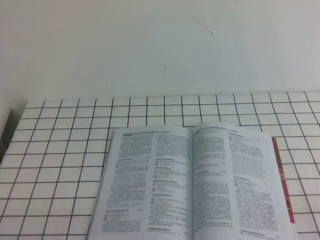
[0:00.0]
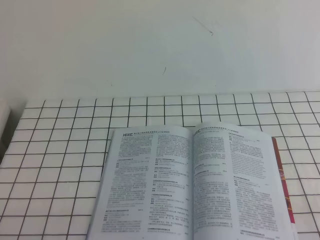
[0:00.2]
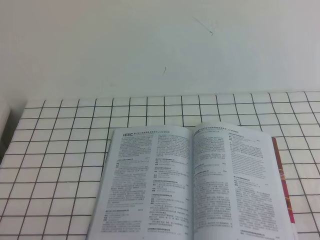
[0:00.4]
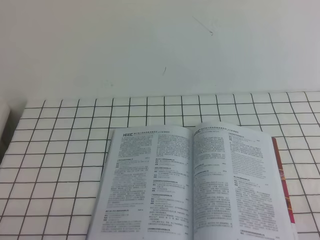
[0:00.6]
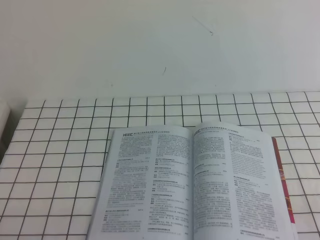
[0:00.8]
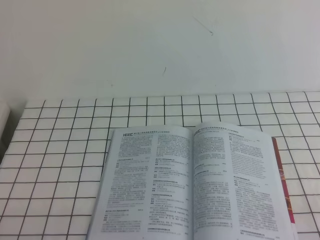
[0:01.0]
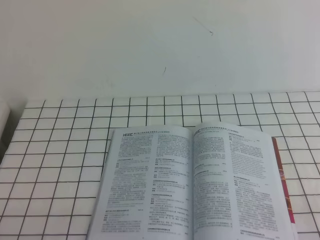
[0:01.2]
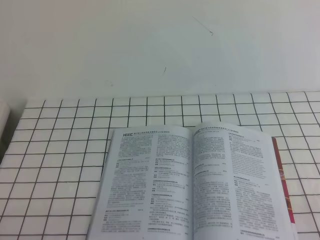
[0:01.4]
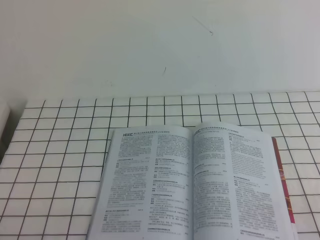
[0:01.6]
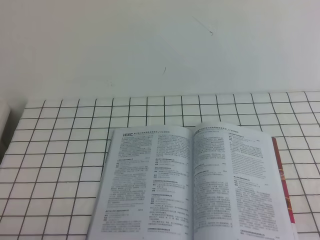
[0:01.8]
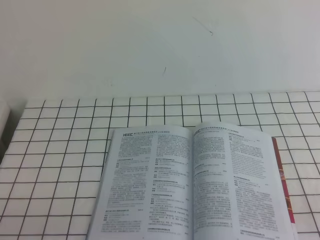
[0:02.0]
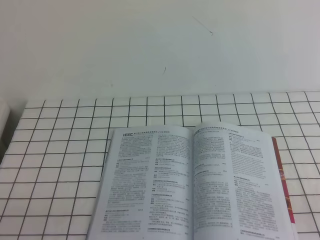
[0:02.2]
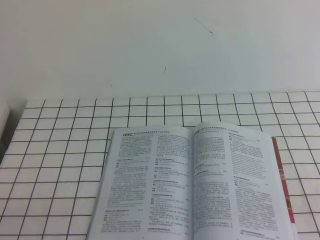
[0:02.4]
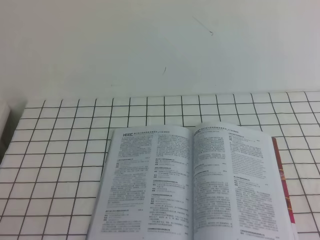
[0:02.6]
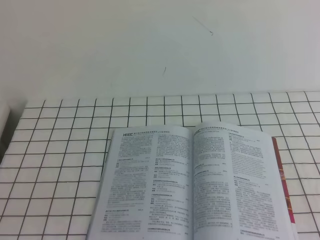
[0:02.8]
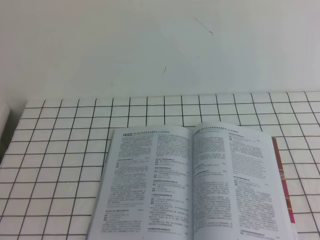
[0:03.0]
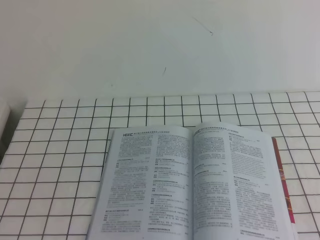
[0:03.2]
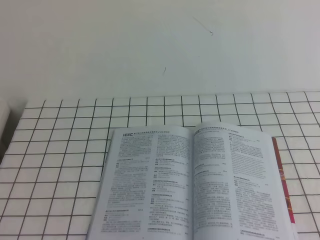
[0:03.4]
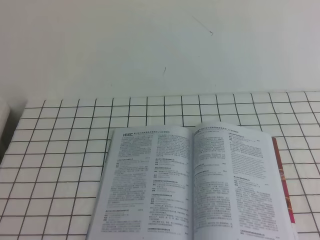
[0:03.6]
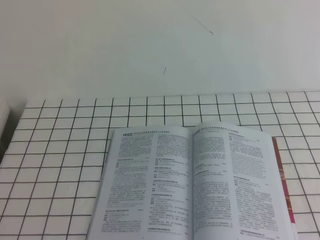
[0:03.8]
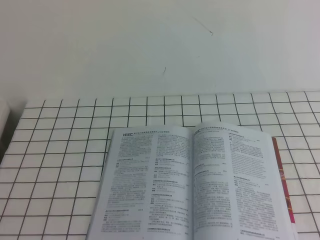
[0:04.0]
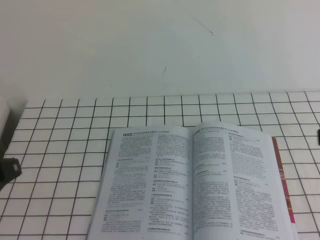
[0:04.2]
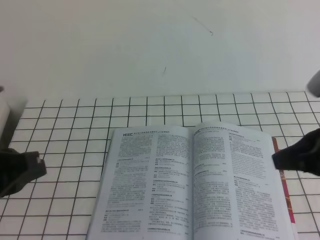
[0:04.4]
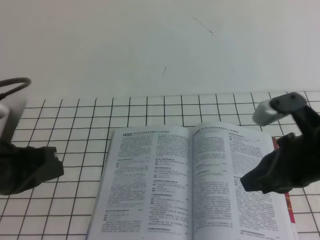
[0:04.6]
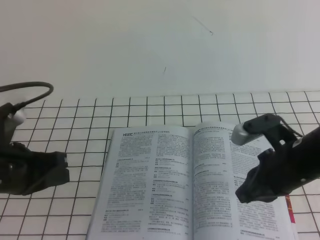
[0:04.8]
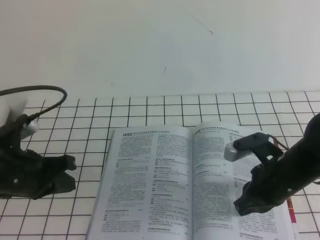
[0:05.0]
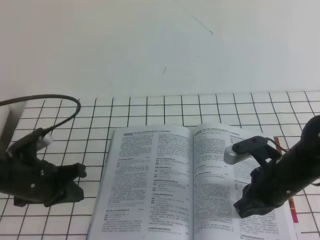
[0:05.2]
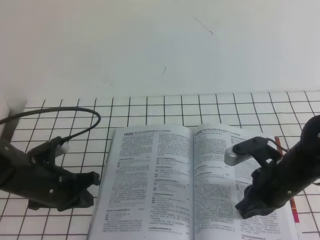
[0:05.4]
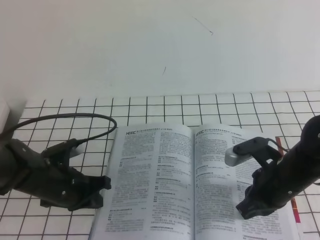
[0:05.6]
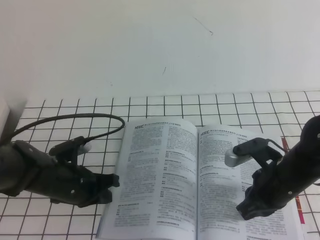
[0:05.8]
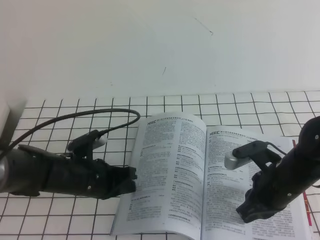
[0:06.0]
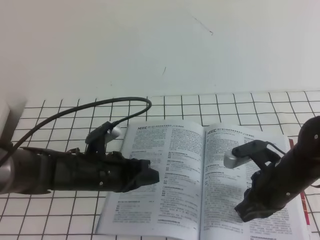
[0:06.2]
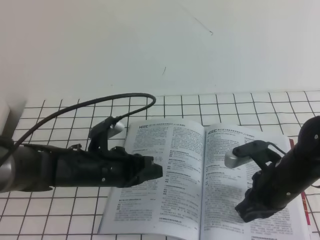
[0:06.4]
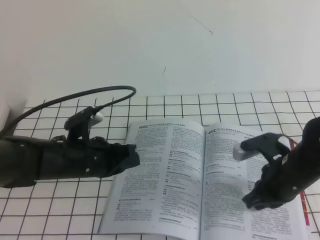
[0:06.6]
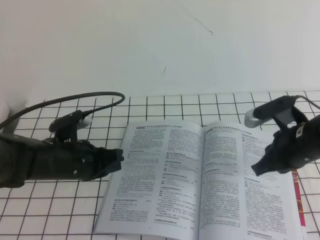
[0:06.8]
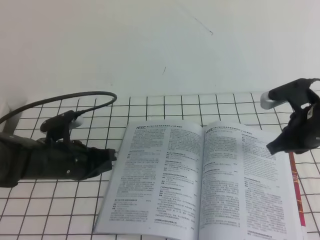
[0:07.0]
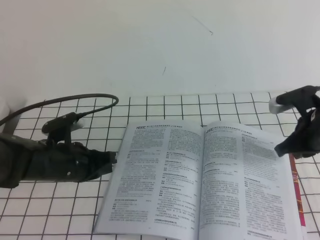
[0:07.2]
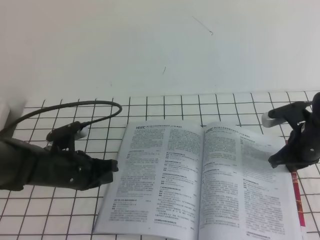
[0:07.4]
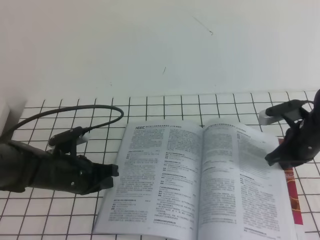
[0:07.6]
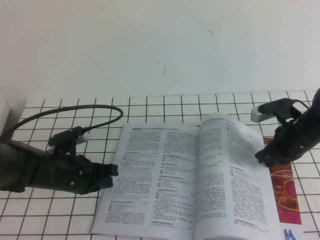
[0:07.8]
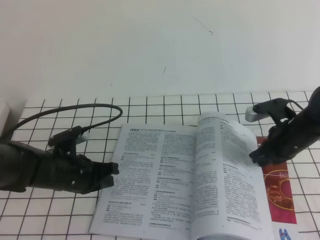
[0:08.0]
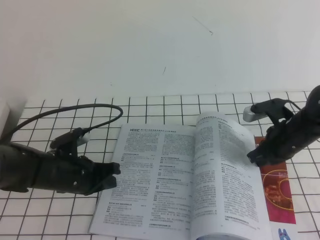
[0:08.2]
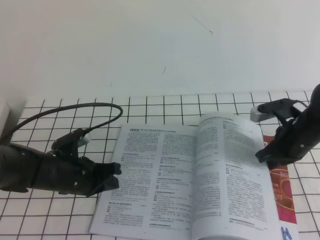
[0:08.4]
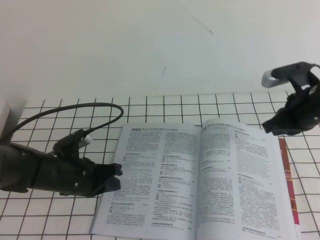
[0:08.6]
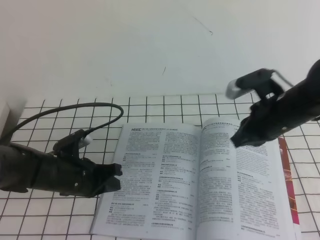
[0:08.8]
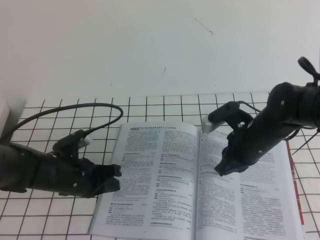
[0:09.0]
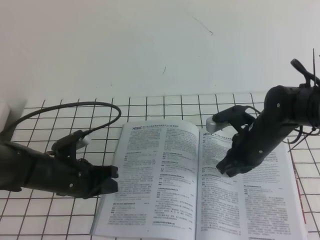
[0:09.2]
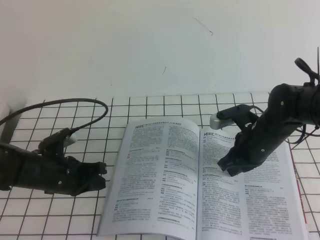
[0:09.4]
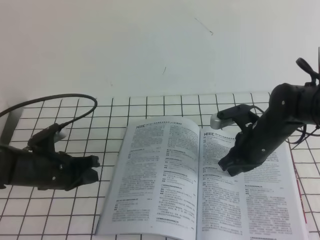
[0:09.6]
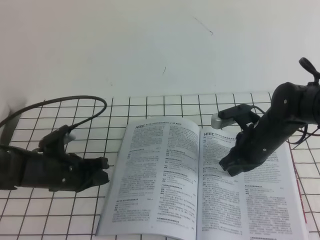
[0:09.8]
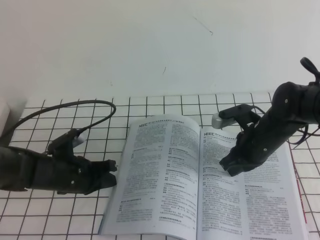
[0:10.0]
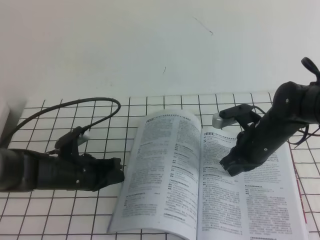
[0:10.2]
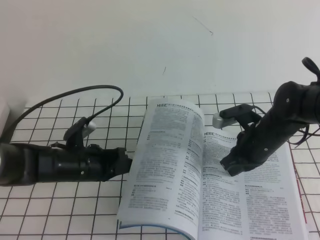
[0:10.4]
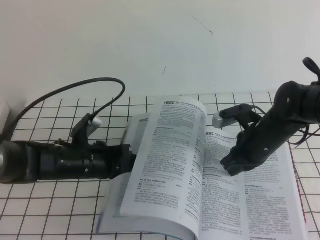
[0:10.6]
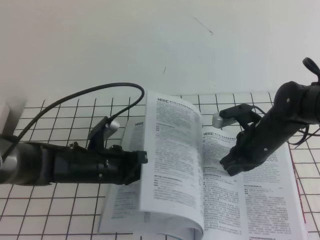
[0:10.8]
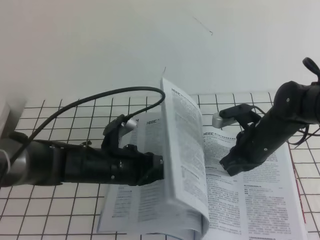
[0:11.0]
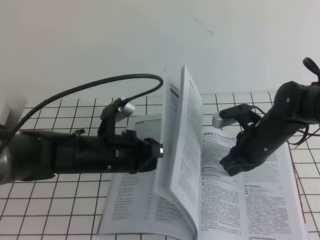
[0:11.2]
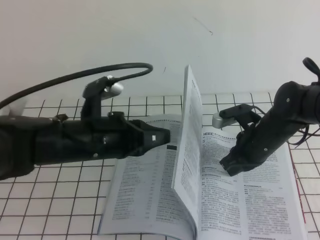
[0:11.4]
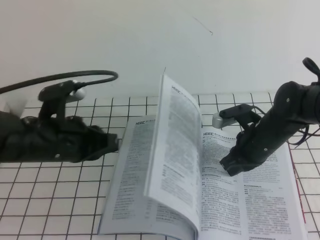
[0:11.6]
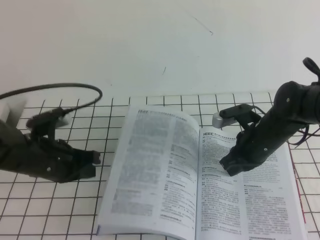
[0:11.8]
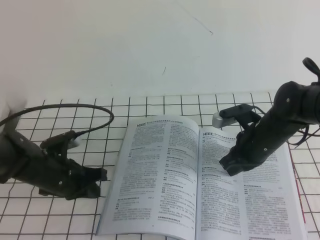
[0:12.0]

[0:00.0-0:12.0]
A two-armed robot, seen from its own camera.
Task of the whole recording: on the white tablecloth, hold the book with one hand and close it with the other.
0:03.0 to 0:04.4: The two grippers go approximately 20 cm forward.
0:04.4 to 0:06.0: The left gripper moves downward, forward and to the right, approximately 25 cm. The right gripper shifts approximately 15 cm downward.
0:06.0 to 0:07.6: The right gripper shifts some 10 cm forward and to the right.
0:07.6 to 0:09.0: The right gripper goes roughly 10 cm to the left.
0:09.0 to 0:10.4: The grippers move only a little.
0:10.4 to 0:12.0: The left gripper reaches about 10 cm upward, then returns.

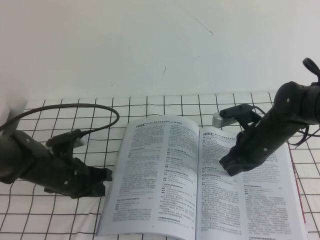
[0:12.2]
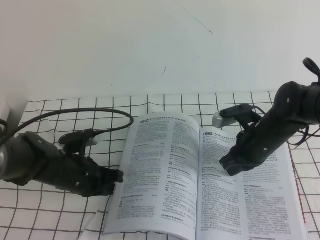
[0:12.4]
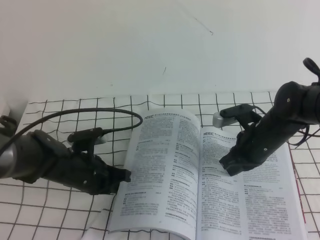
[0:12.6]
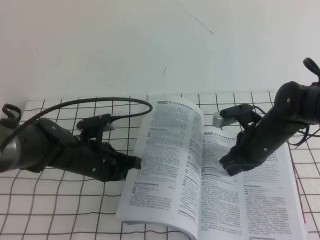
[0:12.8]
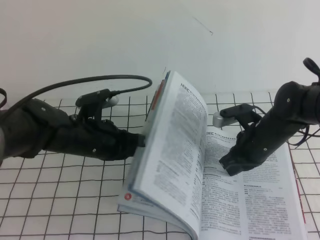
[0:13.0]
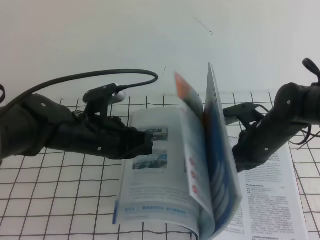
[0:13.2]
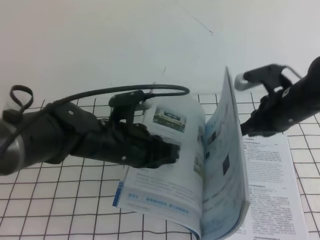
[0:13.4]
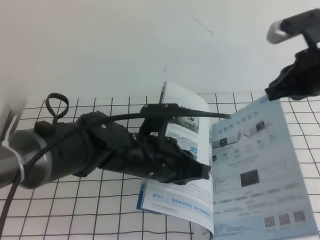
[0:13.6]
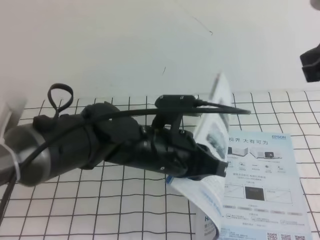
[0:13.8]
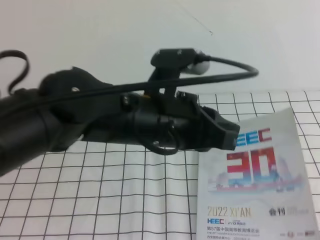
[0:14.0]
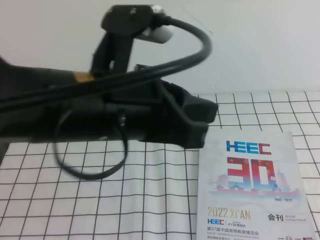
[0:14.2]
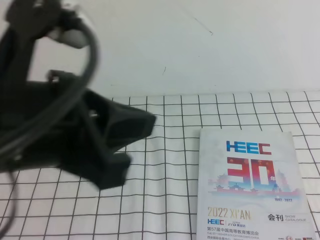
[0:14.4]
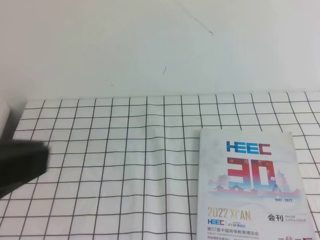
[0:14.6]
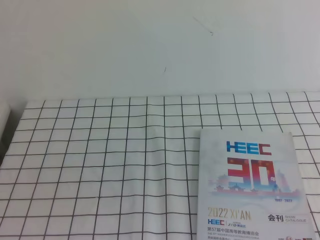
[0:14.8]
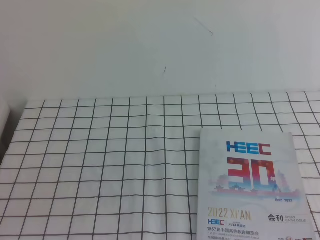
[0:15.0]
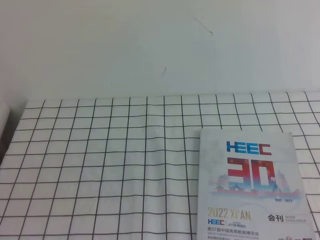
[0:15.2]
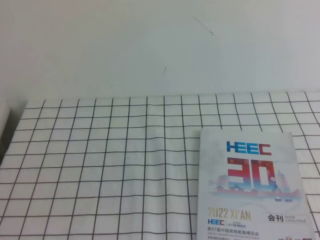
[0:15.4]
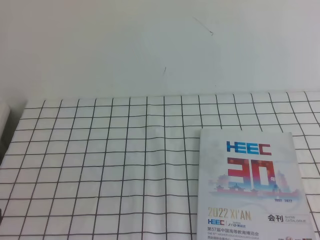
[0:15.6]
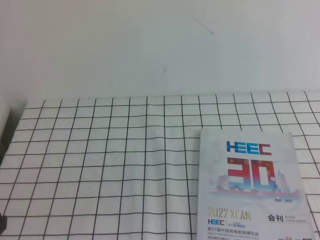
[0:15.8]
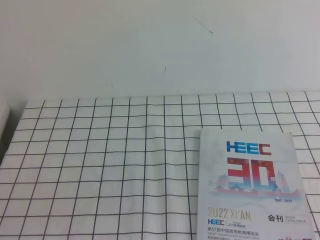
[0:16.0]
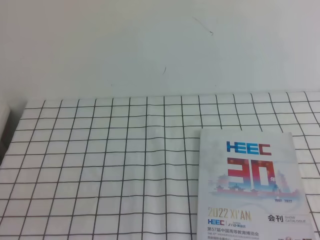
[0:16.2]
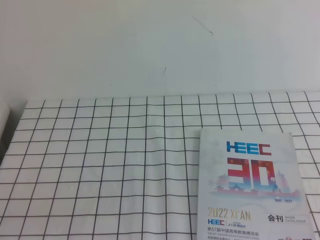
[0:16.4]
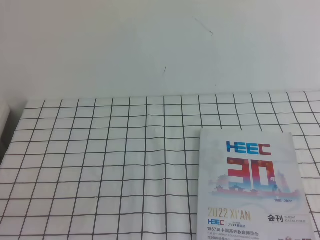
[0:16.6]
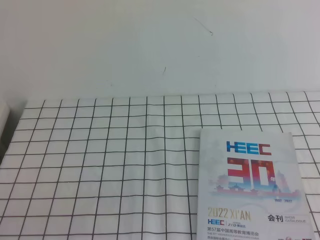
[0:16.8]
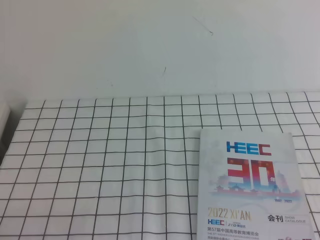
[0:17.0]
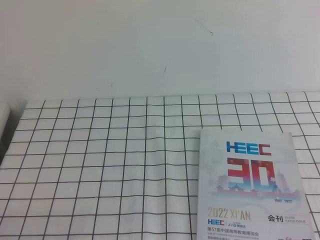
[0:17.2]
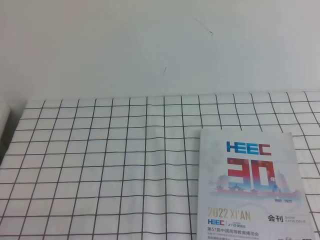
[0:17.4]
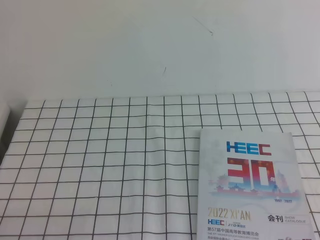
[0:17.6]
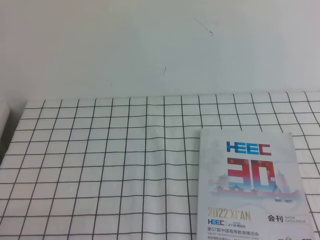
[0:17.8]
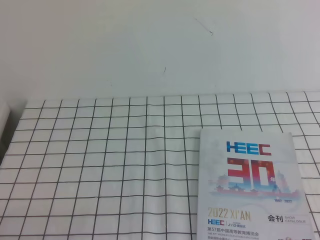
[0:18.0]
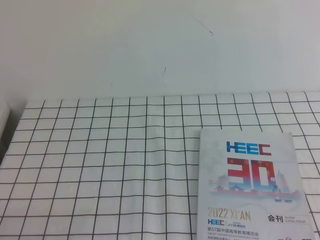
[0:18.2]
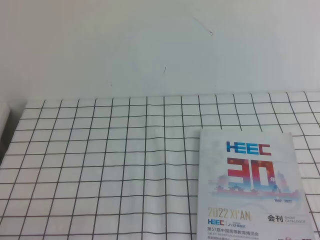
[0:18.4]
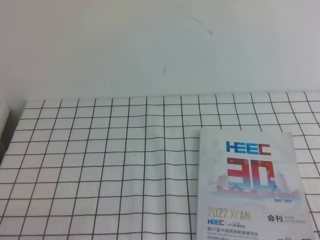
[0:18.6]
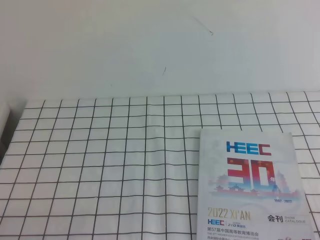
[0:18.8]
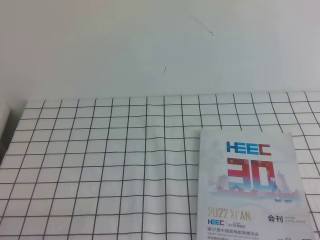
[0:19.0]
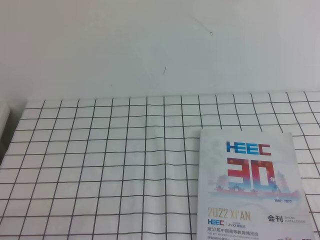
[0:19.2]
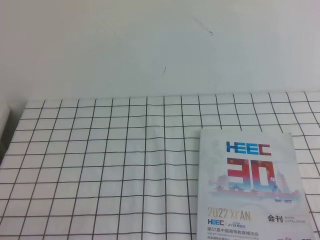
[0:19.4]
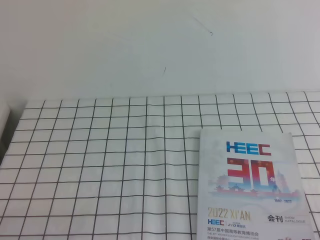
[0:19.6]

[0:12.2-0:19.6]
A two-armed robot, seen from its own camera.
Task of the whole recording: on the white tablecloth, hold the book with one hand and close it with the other.
Step, 0:12.2 to 0:19.6: Close the open book.
0:12.2 to 0:13.6: The left gripper is displaced to the right and upward by approximately 15 cm. Meanwhile the right gripper heads upward, covering approximately 15 cm.
0:13.6 to 0:15.2: The left gripper goes roughly 35 cm backward, to the left and upward, while the right gripper travels backward by some 30 cm.
